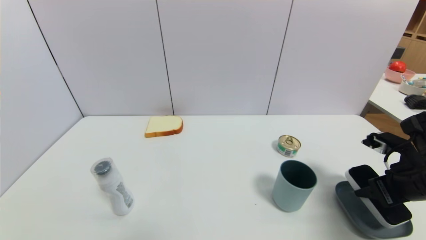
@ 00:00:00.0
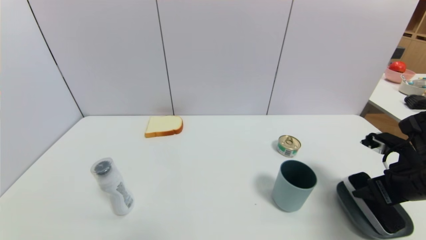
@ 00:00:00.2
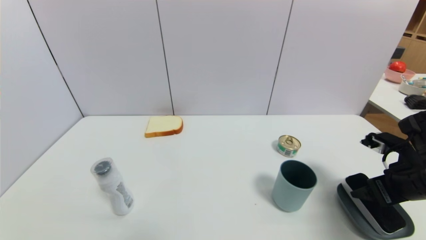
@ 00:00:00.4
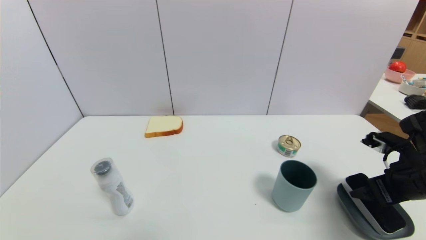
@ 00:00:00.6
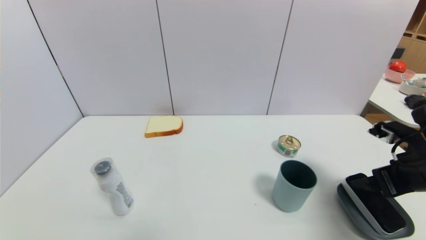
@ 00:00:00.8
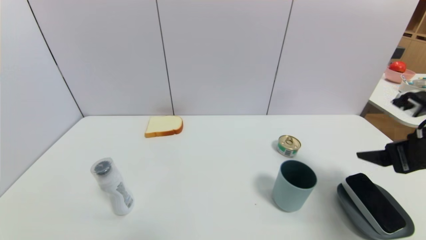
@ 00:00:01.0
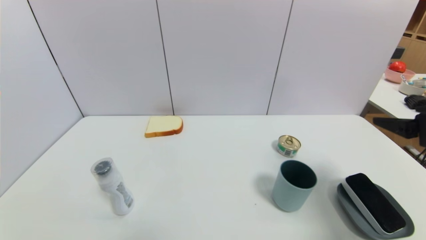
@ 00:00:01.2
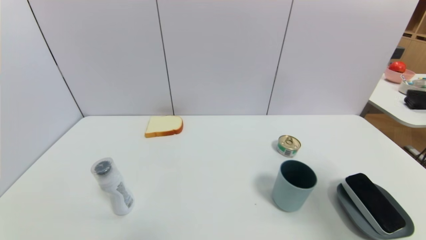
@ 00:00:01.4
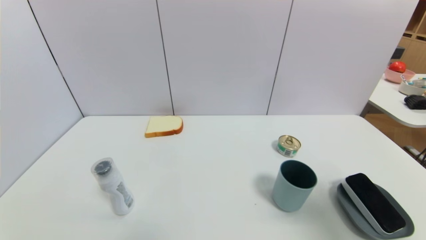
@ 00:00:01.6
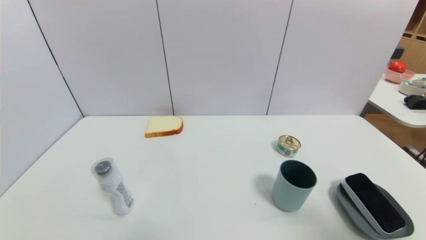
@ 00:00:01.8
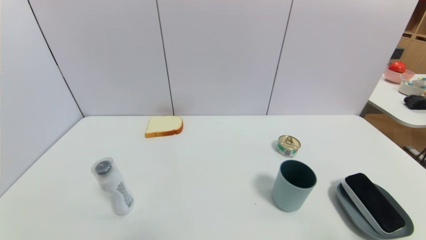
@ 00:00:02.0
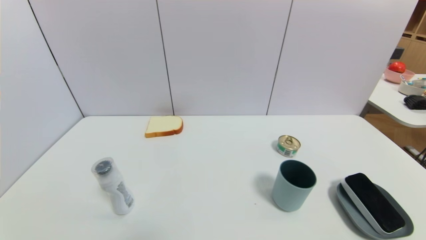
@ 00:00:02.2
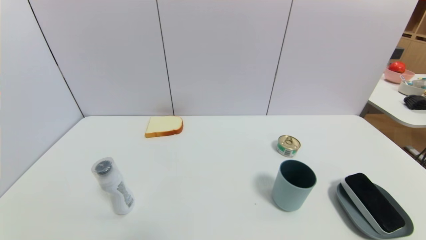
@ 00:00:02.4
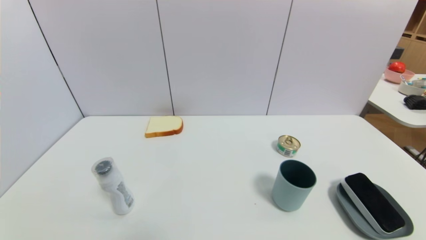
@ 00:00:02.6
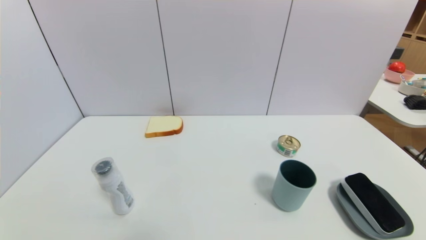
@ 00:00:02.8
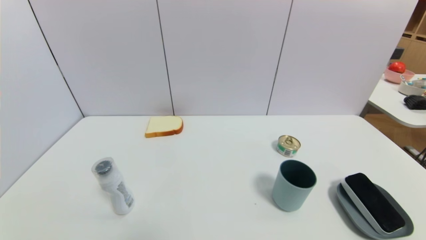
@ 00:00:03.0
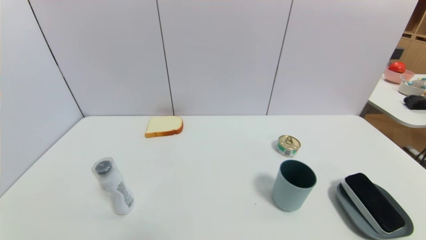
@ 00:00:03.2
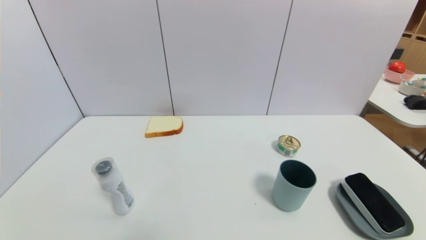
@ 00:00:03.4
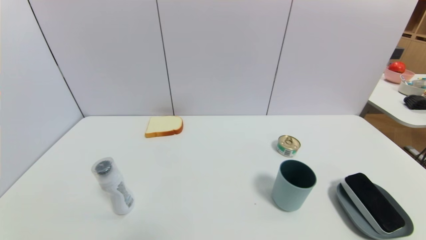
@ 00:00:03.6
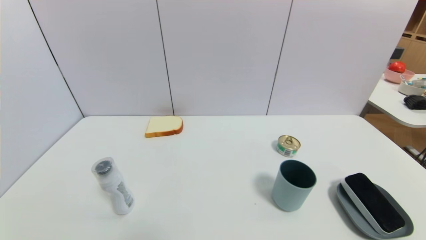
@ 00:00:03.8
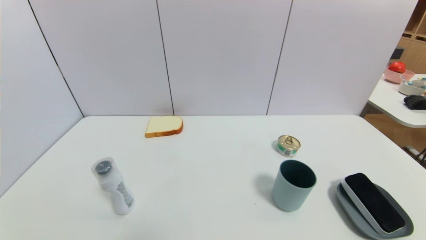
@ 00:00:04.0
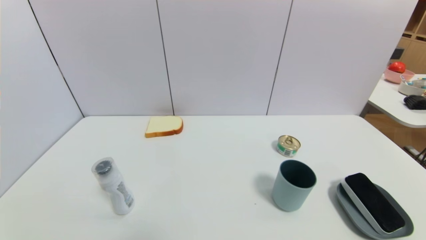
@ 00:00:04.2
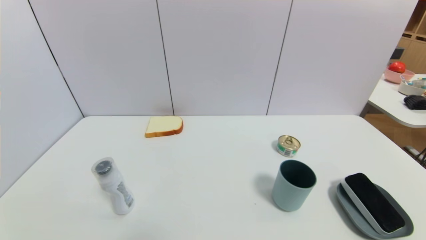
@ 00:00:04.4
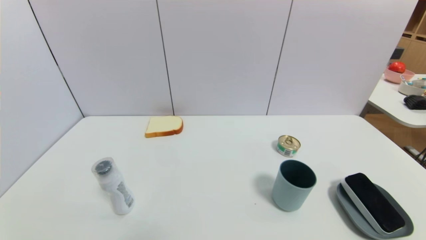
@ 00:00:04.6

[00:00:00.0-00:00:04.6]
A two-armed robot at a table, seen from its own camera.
Task of the whole recording: use a gripper to pick the target object and place on the dish.
00:00:00.0 to 00:00:01.6: The right gripper travels upward and backward by about 20 cm, and opens.
00:00:01.6 to 00:00:03.0: The right gripper travels downward and backward by approximately 25 cm.
00:00:03.0 to 00:00:04.6: Both grippers stay about where they are.
